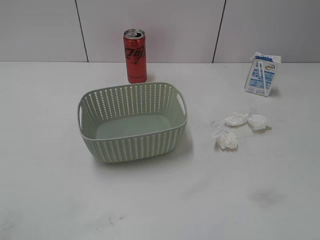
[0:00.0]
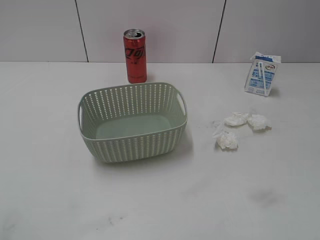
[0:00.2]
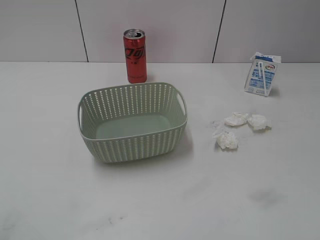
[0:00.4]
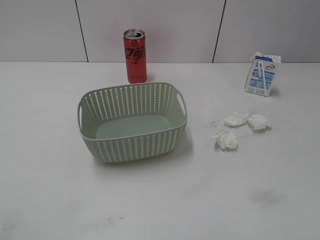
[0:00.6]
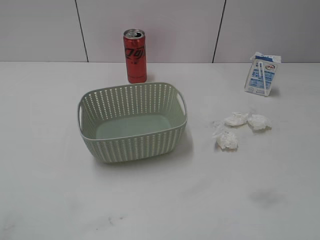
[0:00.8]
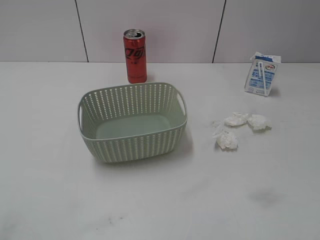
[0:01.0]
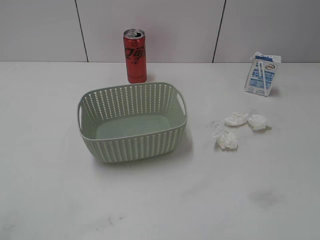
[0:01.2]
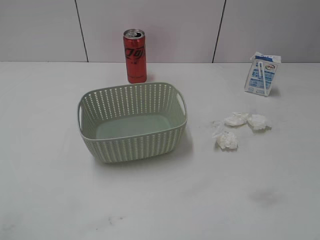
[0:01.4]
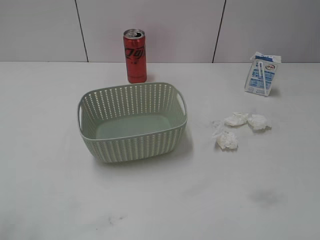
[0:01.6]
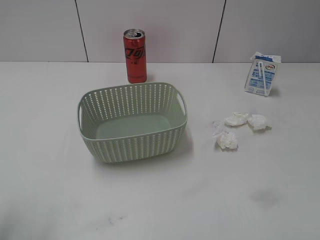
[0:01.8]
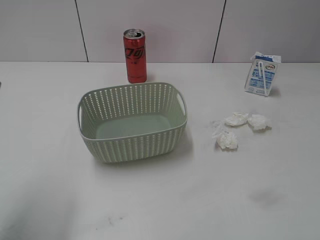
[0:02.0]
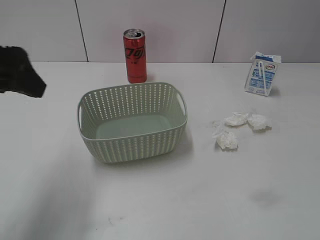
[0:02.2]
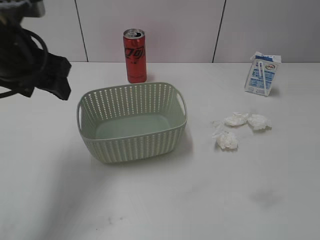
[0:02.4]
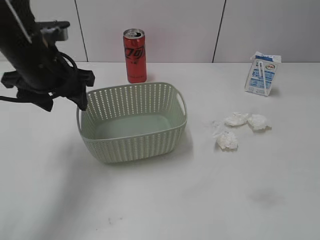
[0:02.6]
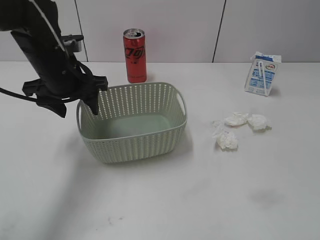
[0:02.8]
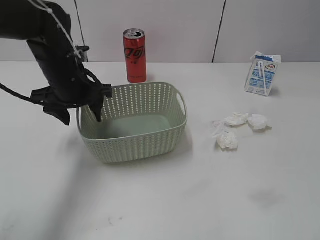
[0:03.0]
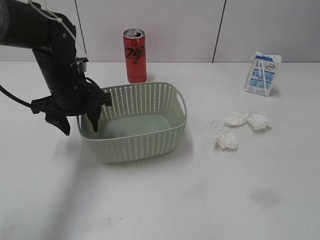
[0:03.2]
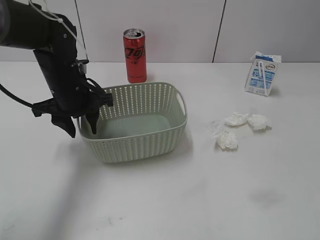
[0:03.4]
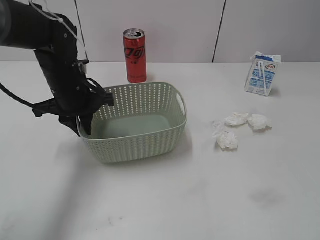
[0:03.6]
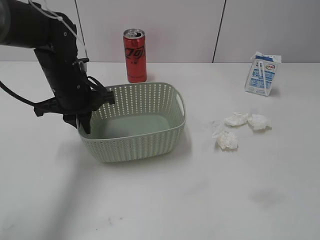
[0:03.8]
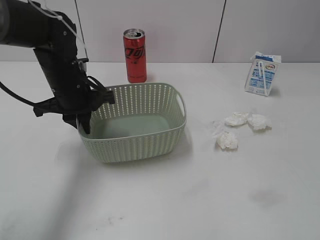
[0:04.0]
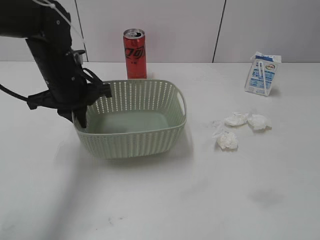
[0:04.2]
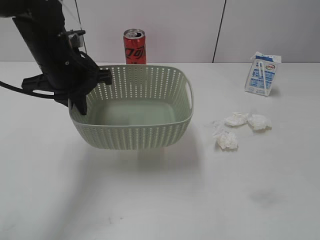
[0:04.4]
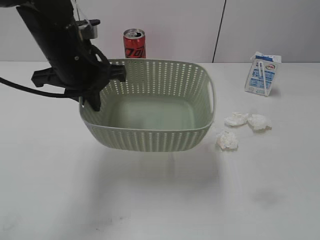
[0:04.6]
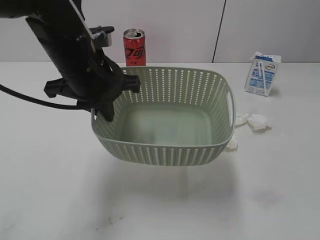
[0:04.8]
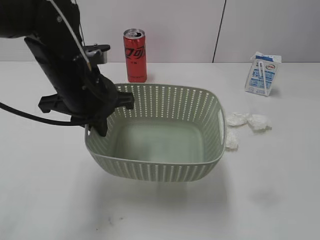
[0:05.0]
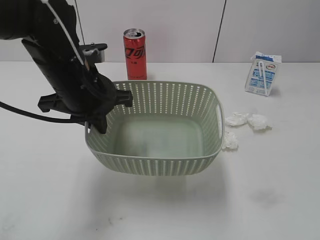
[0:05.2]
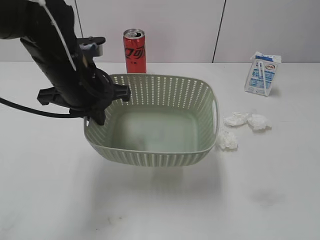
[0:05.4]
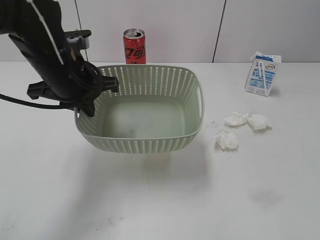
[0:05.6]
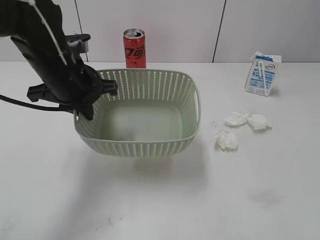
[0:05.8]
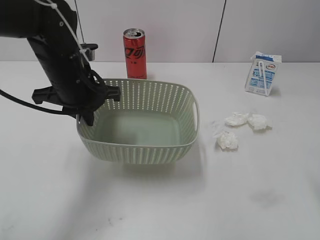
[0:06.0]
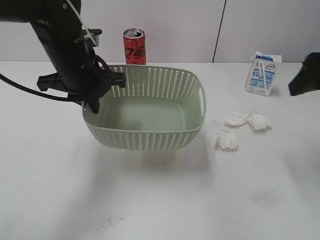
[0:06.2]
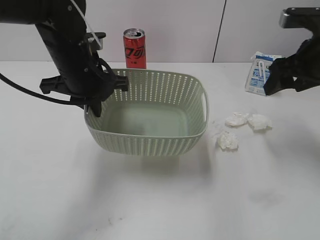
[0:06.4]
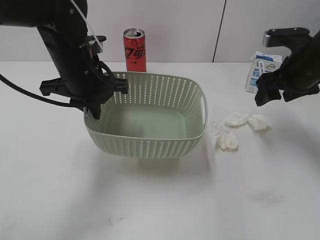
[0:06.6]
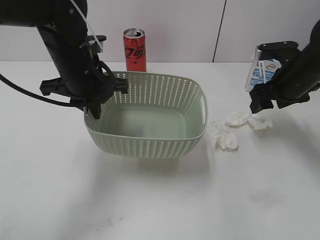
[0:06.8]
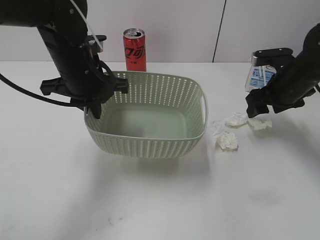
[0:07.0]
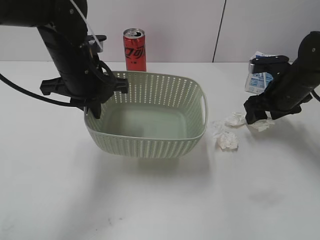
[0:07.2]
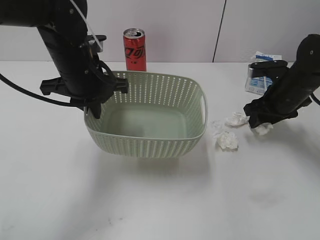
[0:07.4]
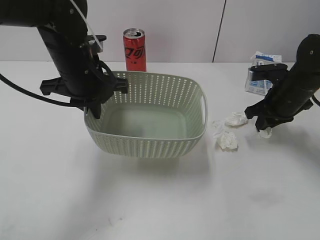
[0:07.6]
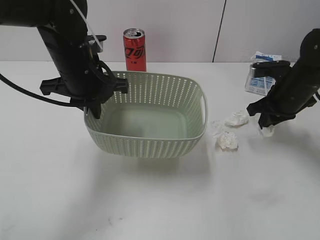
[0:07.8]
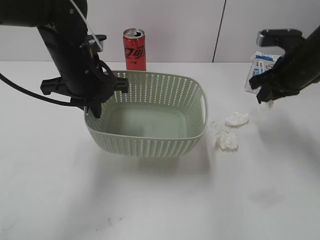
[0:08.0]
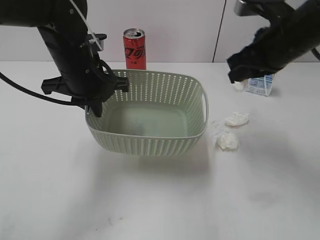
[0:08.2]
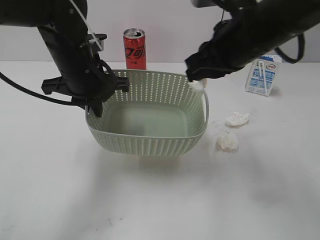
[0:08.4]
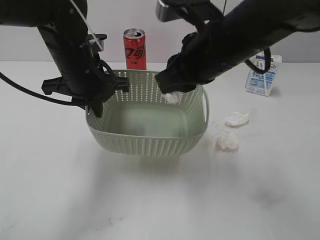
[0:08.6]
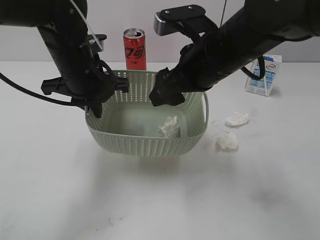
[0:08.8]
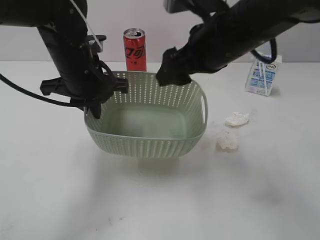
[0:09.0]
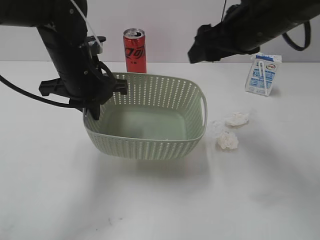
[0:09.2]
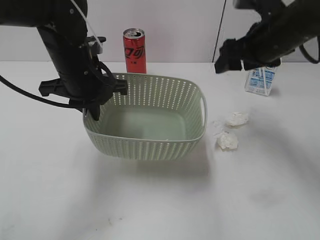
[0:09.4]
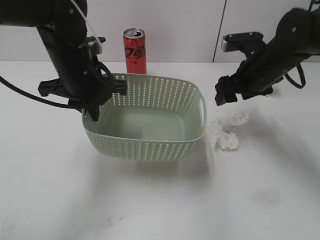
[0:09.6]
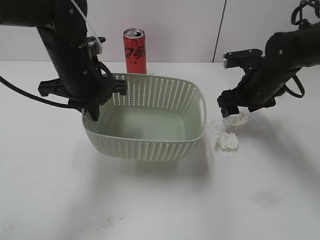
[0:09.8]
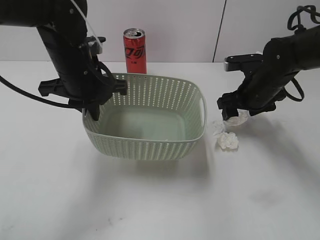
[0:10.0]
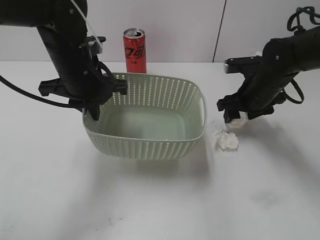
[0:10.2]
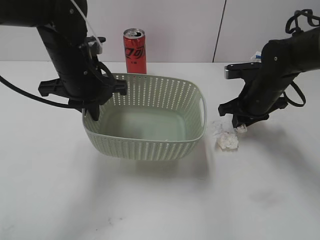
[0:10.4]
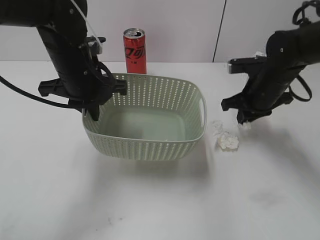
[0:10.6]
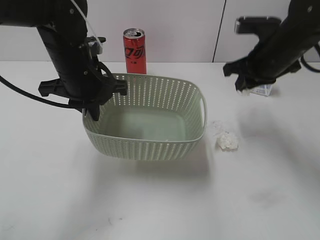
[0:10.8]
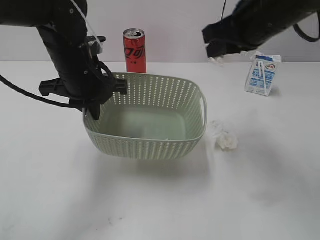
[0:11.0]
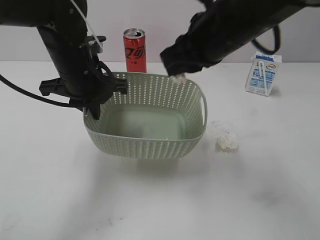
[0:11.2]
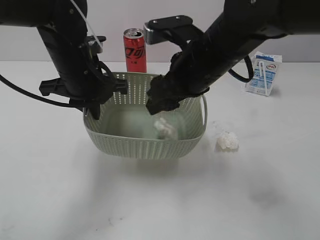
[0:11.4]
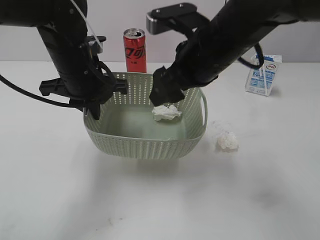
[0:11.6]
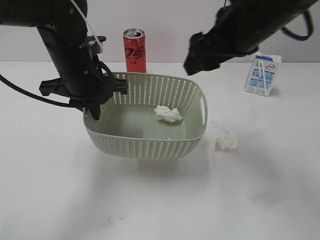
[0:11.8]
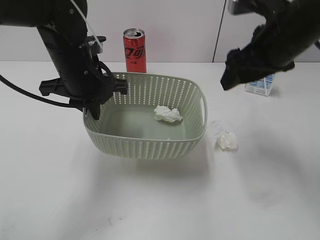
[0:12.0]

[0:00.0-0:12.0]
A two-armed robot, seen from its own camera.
Step, 0:02.0 to 0:03.8: Grasp the basket with left gripper.
Step, 0:04.0 to 0:05.0: Lift the basket with left gripper.
Step, 0:05.2 to 0:08.2: Grasp the waste paper with right gripper.
Step, 0:08.4 to 0:08.8: Place the waste paper in the basket with right gripper.
Step, 0:09.0 to 0:10.6: Grasp the waste paper with right gripper.
Step, 0:10.8 to 0:11.4: Place the waste paper in the basket with right gripper.
0:01.6 to 0:03.0: The left gripper is displaced forward, downward and to the right by some 35 cm.
0:03.0 to 0:04.4: The left gripper travels upward by approximately 5 cm, and closes its fingers.
0:04.4 to 0:06.0: The right gripper moves forward, roughly 20 cm.
0:06.0 to 0:07.6: The right gripper travels downward and forward by some 25 cm, and closes its fingers.
0:07.6 to 0:09.0: The right gripper shifts some 25 cm to the left, upward and backward, and opens its fingers.
0:09.0 to 0:10.4: The right gripper moves downward, to the right and forward, roughly 20 cm, and closes.
0:10.4 to 0:12.0: The right gripper goes up and down, approximately 20 cm each way, reversing 3 times, and opens its fingers.

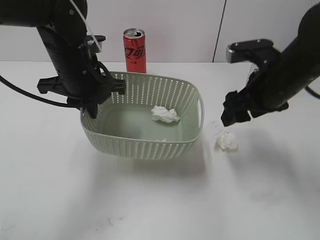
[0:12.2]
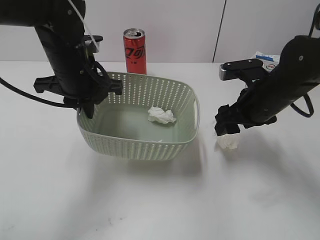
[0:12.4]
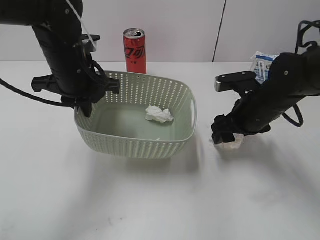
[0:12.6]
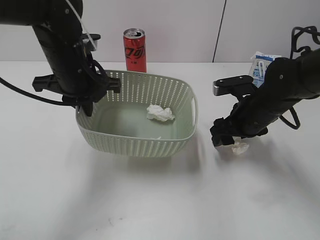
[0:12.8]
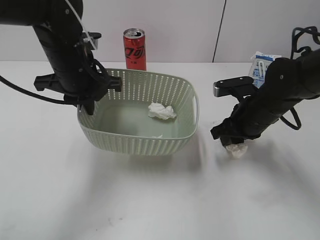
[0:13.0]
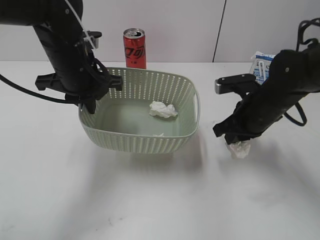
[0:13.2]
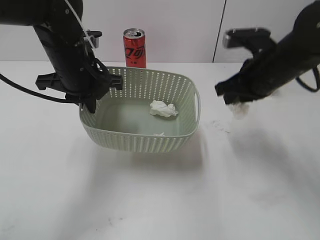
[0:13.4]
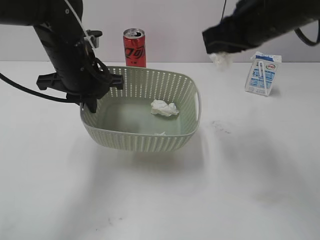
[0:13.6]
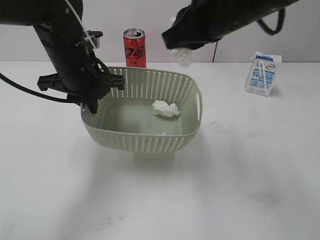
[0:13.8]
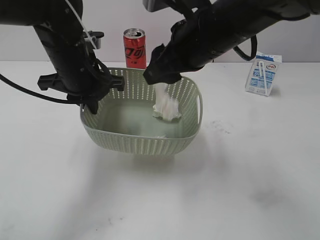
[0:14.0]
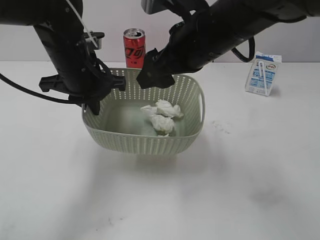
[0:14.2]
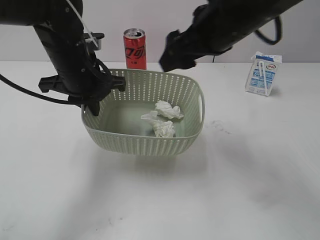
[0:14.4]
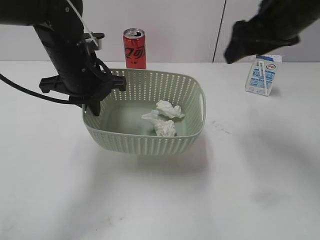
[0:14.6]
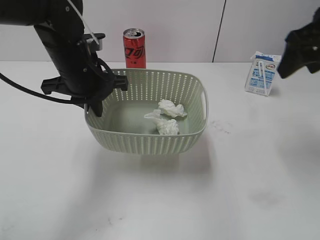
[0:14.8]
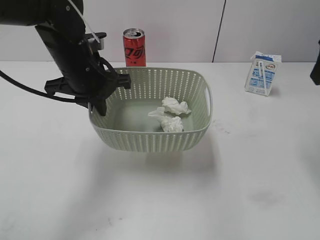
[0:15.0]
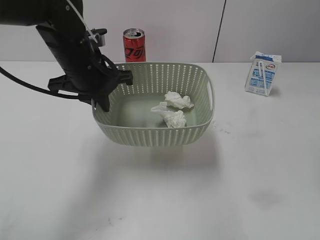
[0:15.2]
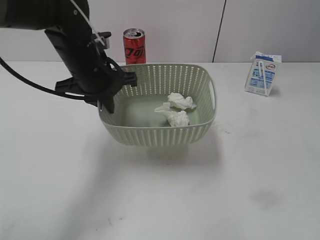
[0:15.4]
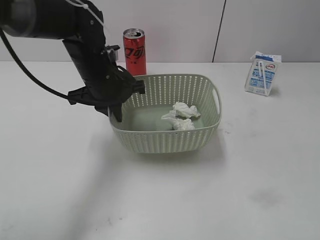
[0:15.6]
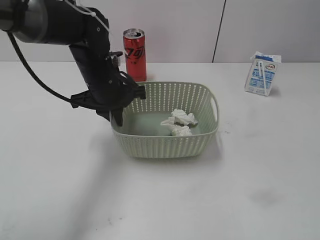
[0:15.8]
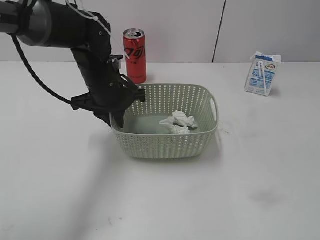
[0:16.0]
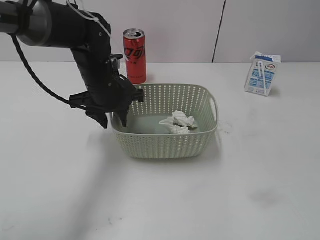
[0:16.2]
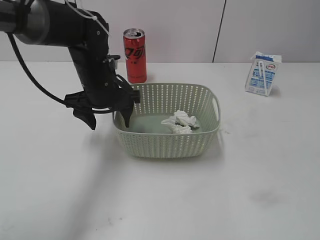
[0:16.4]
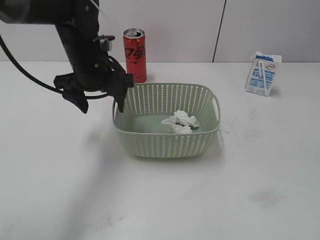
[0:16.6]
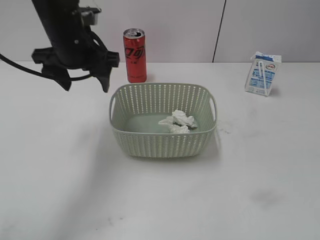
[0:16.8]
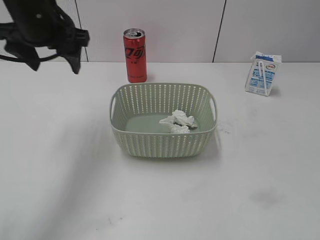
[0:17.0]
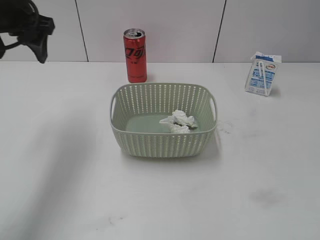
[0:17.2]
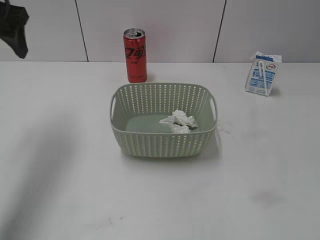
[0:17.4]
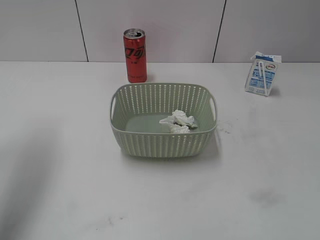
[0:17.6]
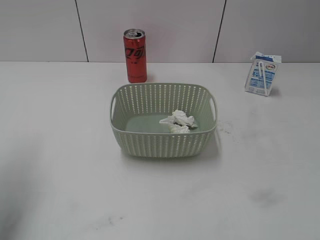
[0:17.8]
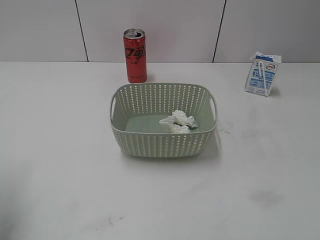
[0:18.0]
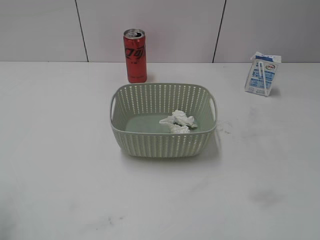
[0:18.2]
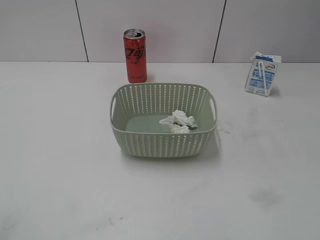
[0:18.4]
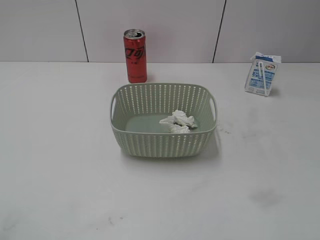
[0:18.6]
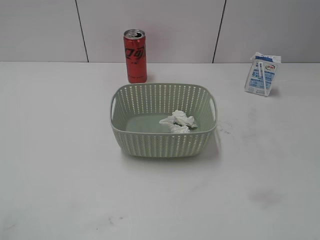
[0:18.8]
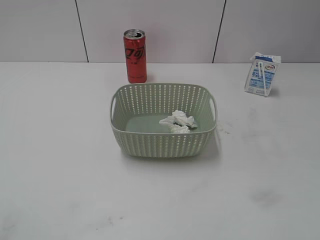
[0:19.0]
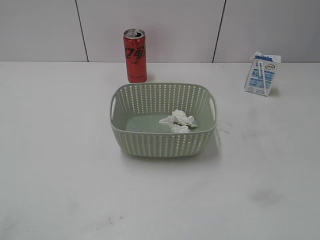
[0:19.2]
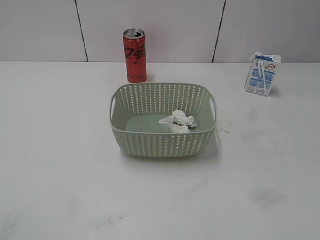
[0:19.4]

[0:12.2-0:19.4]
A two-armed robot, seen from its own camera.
Step, 0:12.2 to 0:13.2: Grasp the waste paper with right gripper.
Step, 0:13.4 to 0:14.4: Place the waste paper in the basket with right gripper.
Step, 0:14.6 to 0:16.2: Place the basket on the table with left gripper.
0:12.2 to 0:13.6: The right gripper moves upward and to the left, roughly 15 cm, and closes.
0:13.6 to 0:15.0: The right gripper is displaced to the right by roughly 15 cm, and opens up.
0:15.0 to 0:16.6: The right gripper travels backward by some 30 cm. The left gripper opens up.
0:16.6 to 0:18.0: The left gripper travels to the left, backward and upward by approximately 25 cm.
0:18.0 to 0:19.4: The left gripper shifts about 20 cm backward.

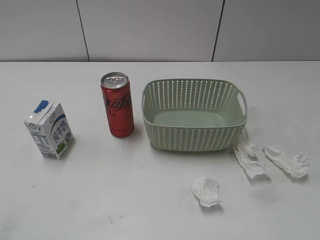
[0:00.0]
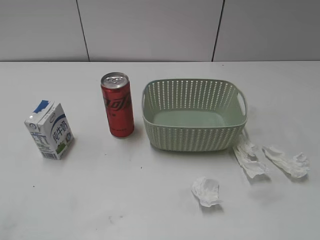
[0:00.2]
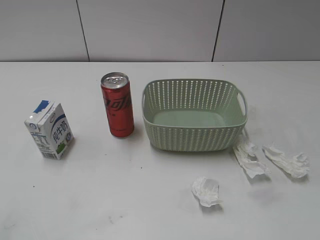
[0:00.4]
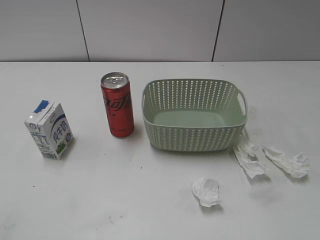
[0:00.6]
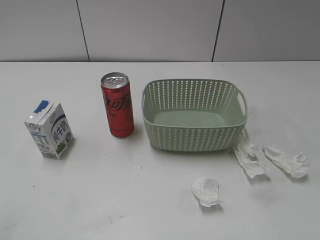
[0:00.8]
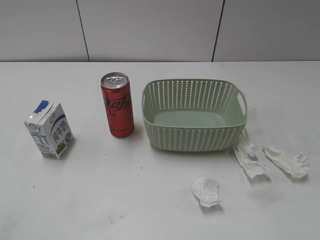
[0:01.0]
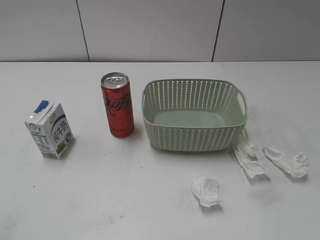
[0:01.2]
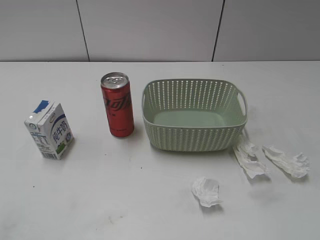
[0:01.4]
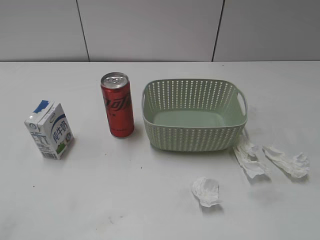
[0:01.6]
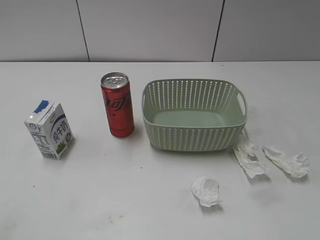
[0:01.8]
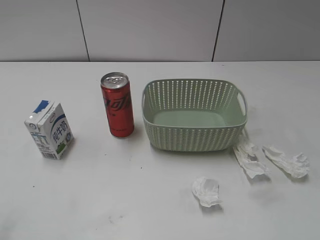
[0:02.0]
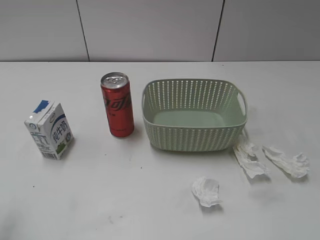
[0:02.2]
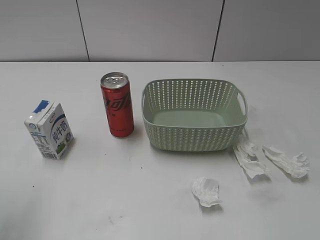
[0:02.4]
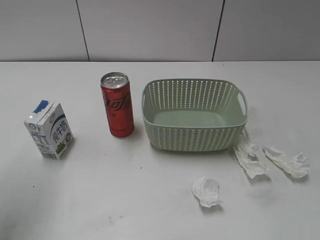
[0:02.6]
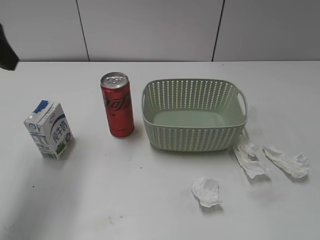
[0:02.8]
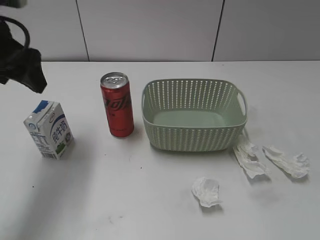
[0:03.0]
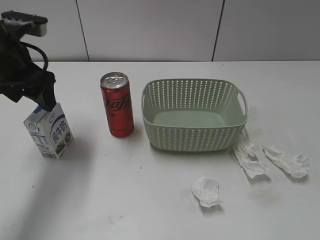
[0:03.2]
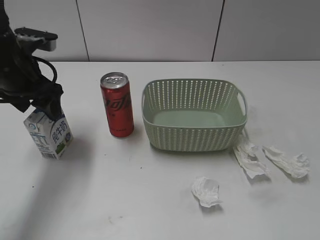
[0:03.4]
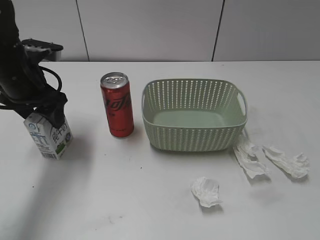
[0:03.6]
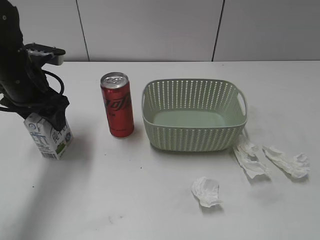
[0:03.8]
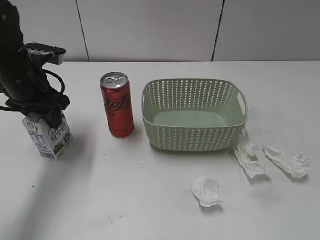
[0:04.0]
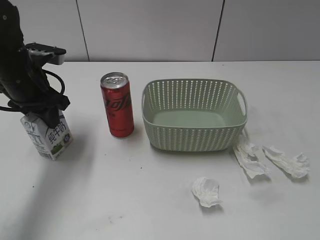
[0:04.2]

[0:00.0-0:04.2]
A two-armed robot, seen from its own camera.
Step, 0:02.8 to 0:04.0: Grasp the milk with left gripper.
0:01.4 to 0:02.8: The left gripper travels forward by approximately 25 cm.
0:02.8 to 0:04.2: The left gripper is displaced downward and forward by approximately 15 cm, and closes.
